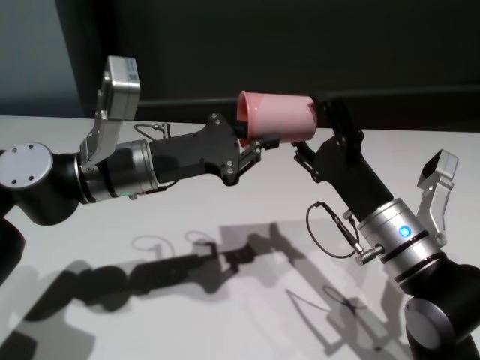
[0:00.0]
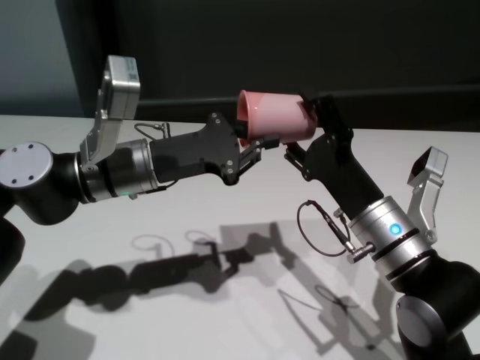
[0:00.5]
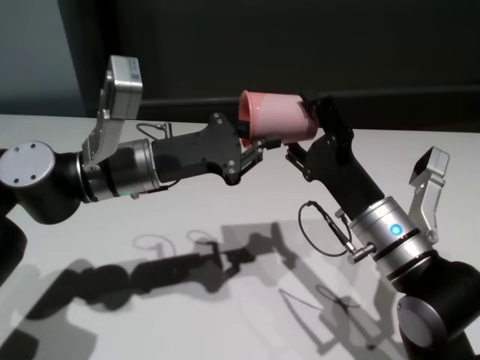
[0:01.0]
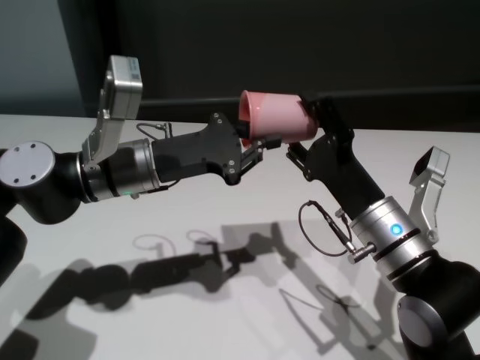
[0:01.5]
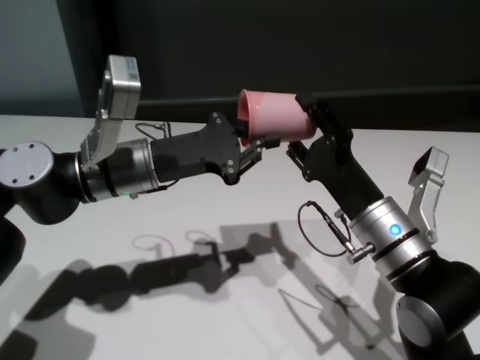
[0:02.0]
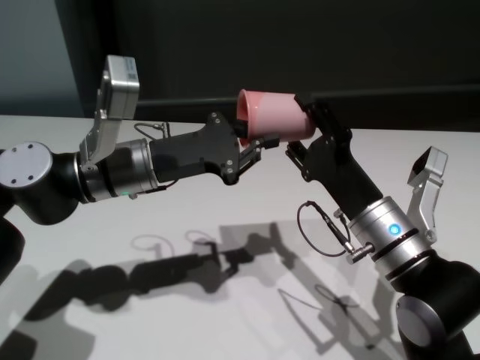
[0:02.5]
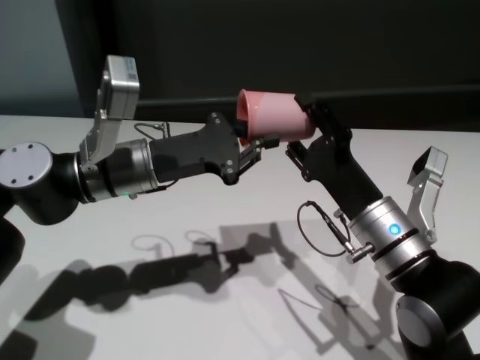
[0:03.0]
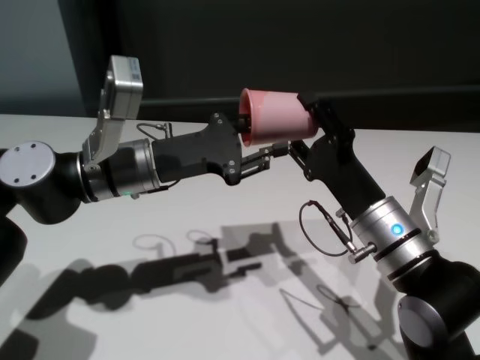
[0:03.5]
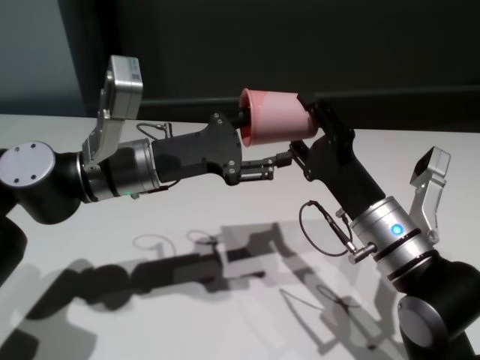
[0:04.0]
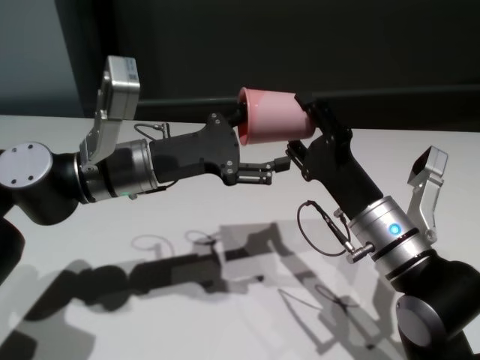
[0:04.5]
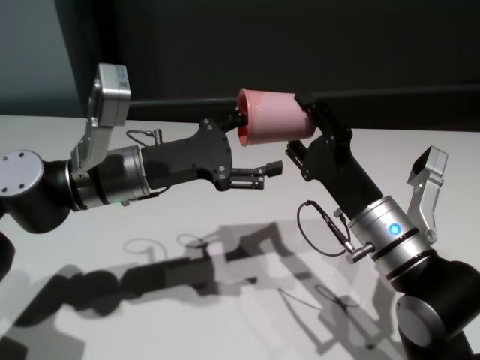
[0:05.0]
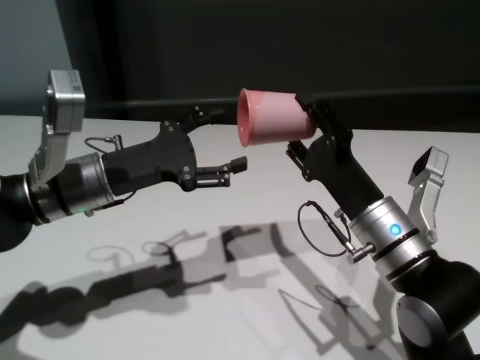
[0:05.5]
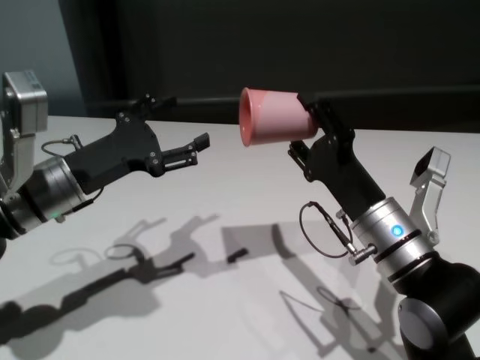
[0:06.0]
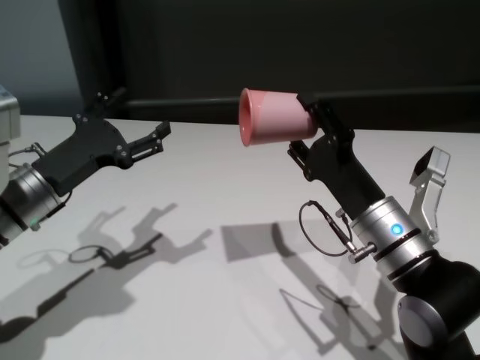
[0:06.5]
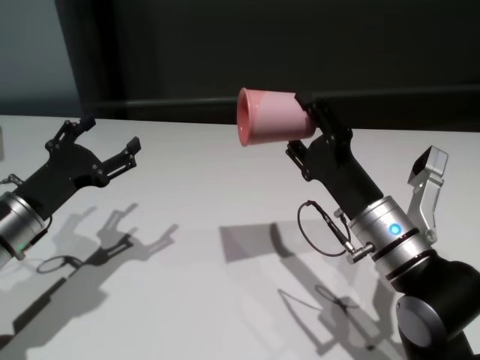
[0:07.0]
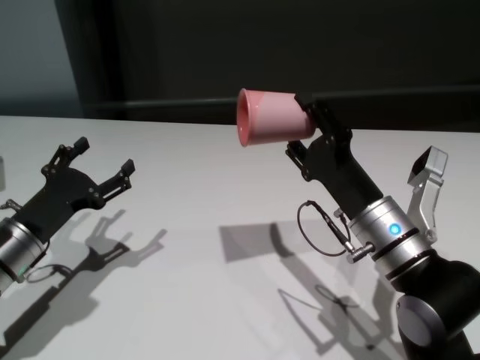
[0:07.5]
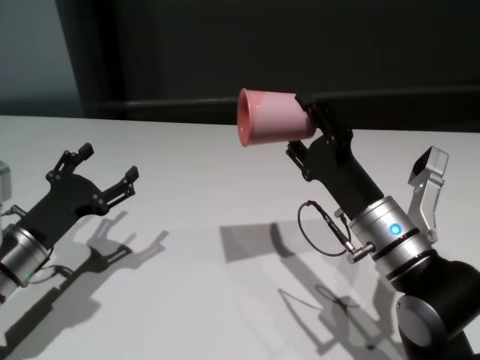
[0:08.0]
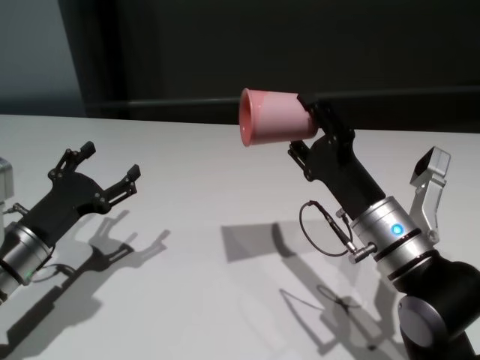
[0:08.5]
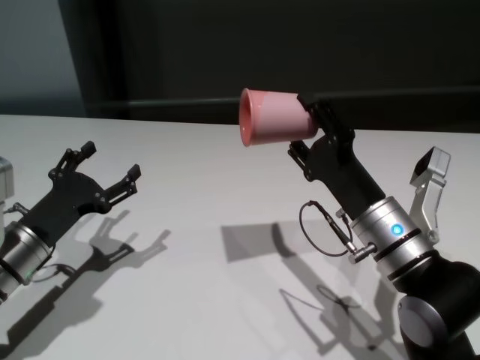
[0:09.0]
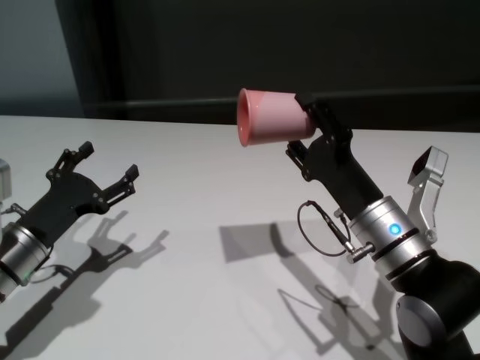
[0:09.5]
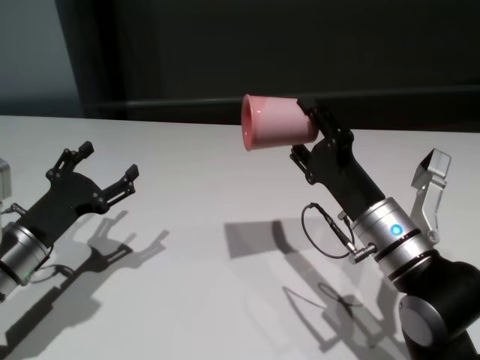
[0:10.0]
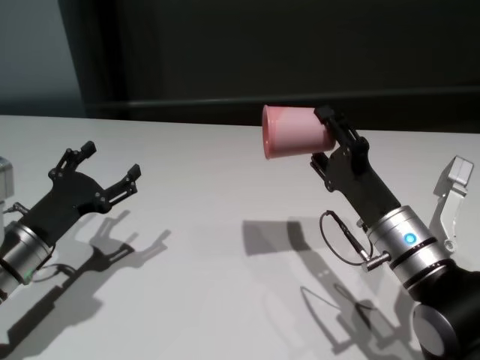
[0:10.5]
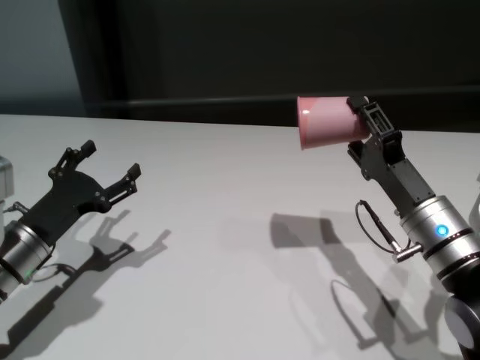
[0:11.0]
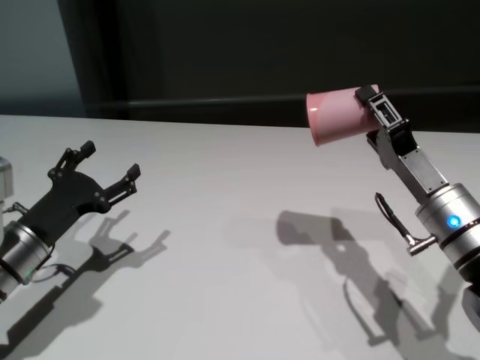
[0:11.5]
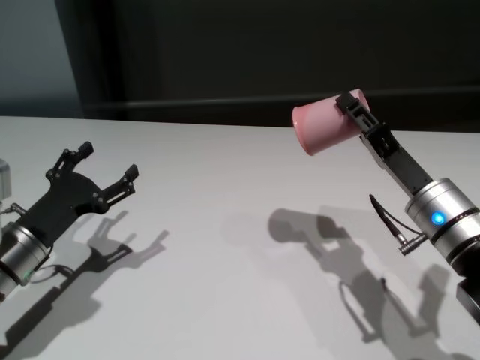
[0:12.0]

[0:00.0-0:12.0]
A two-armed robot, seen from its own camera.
Task of the whole recording: On the white table pick up the cup with one hand and transfer it to the other hand before turning it over.
Step, 0:00.0 to 0:05.0: Pass the cup to the right gripper.

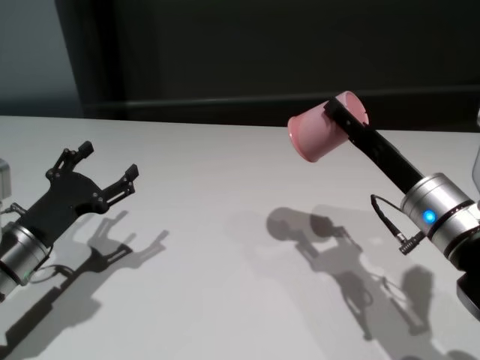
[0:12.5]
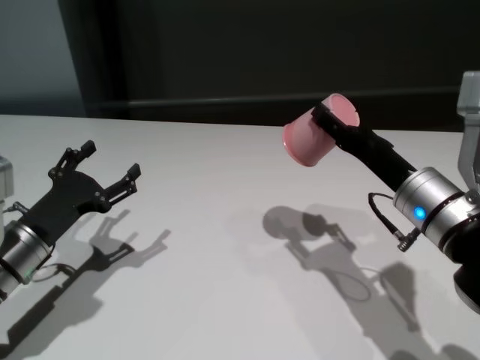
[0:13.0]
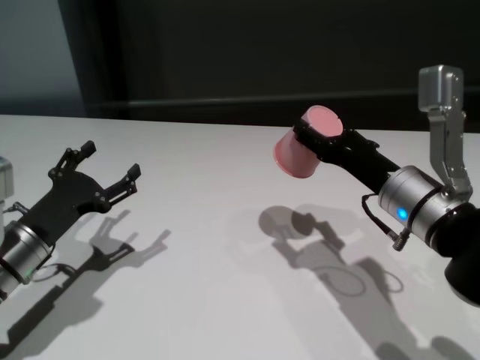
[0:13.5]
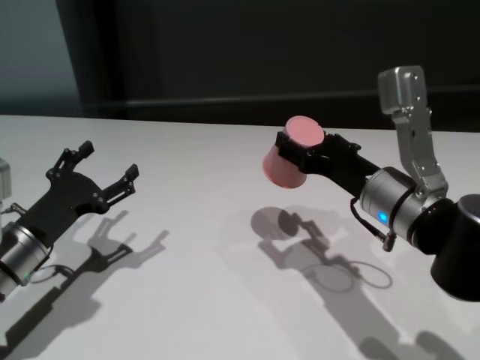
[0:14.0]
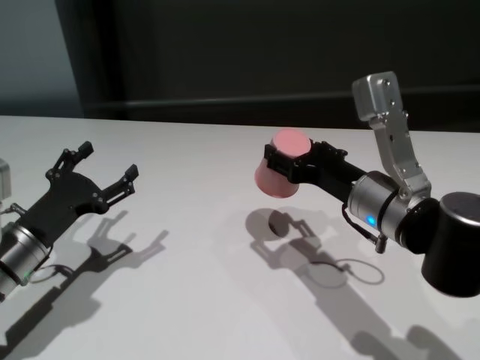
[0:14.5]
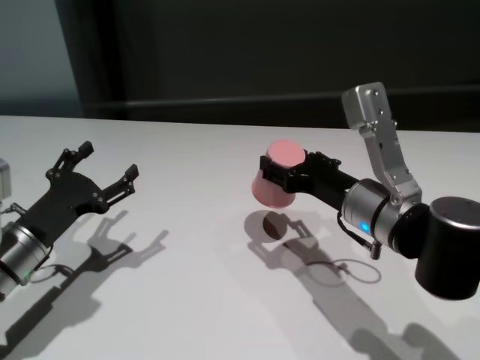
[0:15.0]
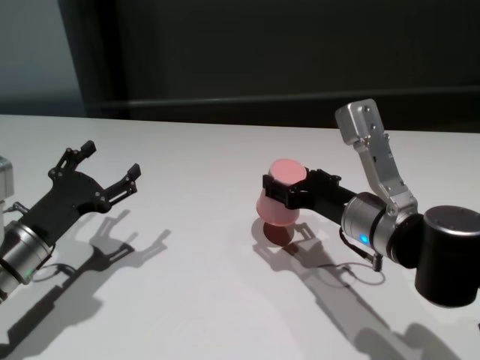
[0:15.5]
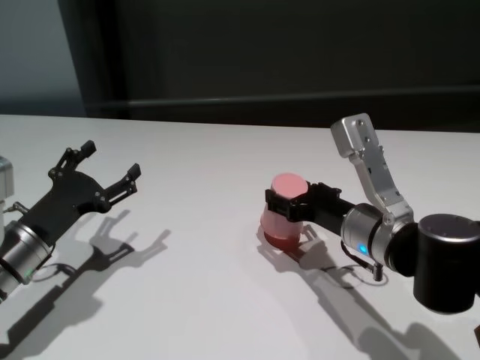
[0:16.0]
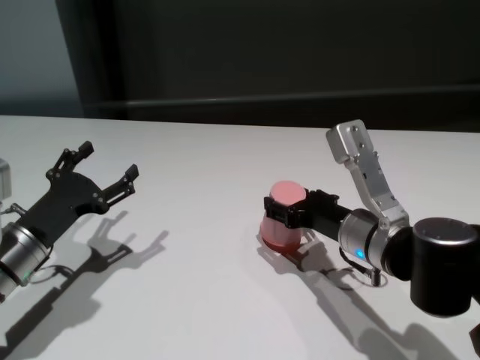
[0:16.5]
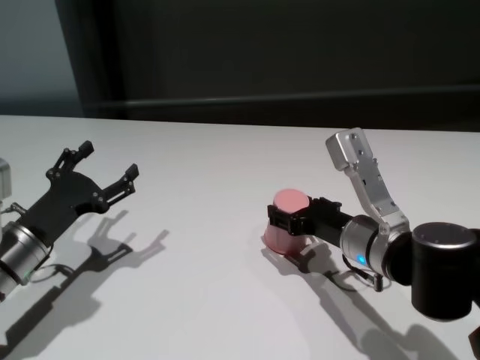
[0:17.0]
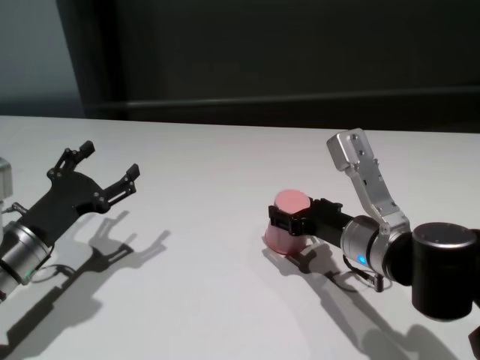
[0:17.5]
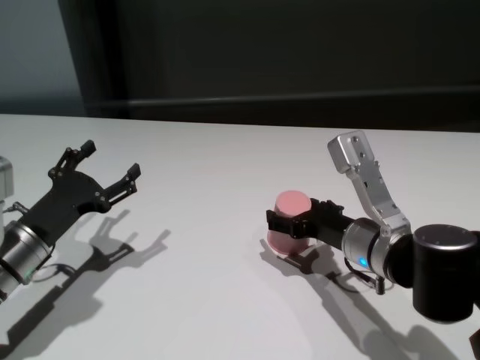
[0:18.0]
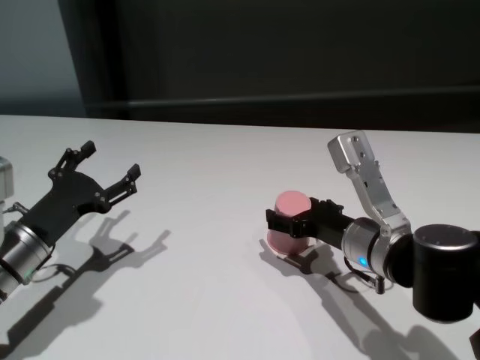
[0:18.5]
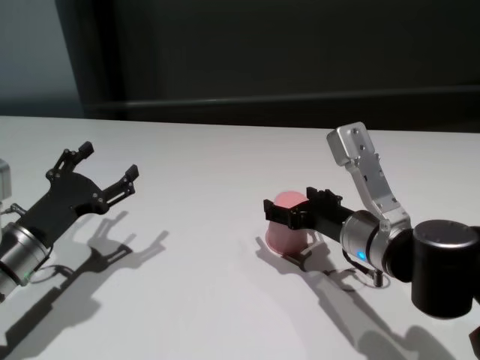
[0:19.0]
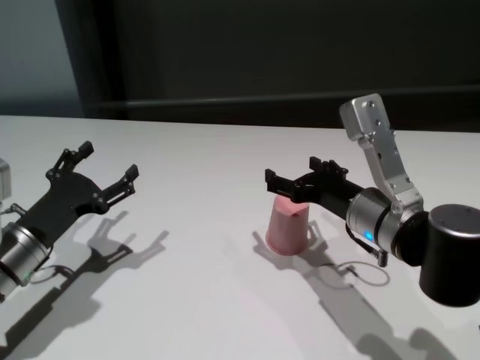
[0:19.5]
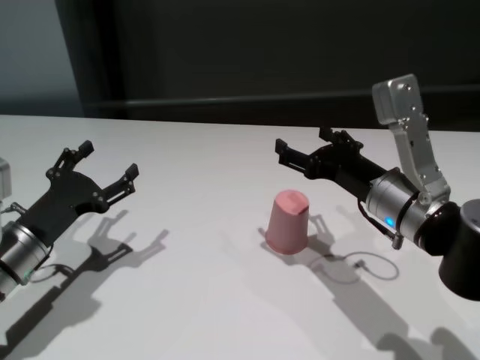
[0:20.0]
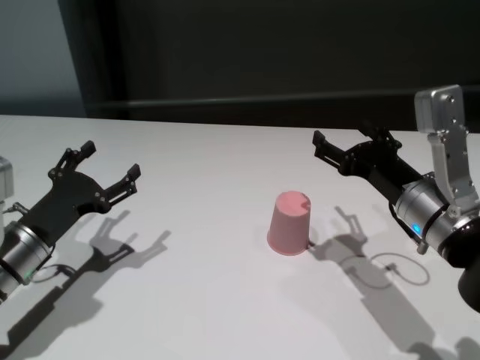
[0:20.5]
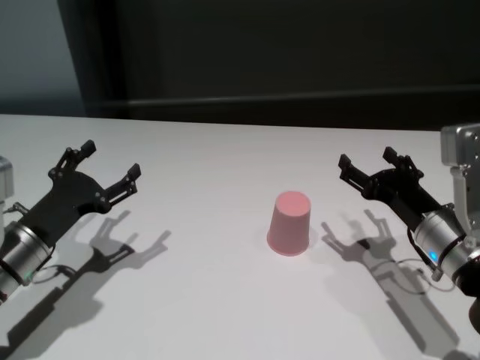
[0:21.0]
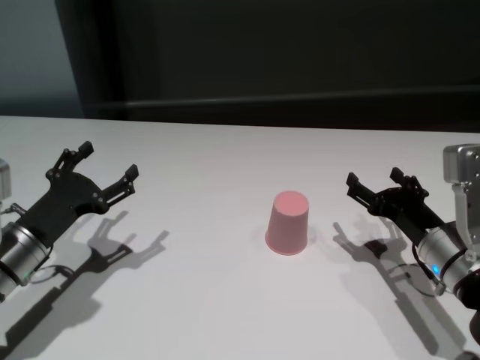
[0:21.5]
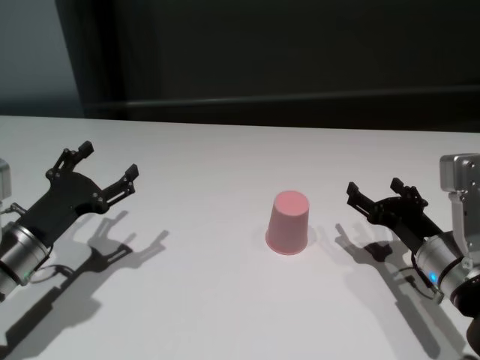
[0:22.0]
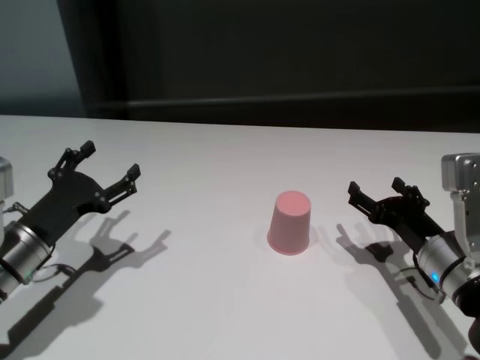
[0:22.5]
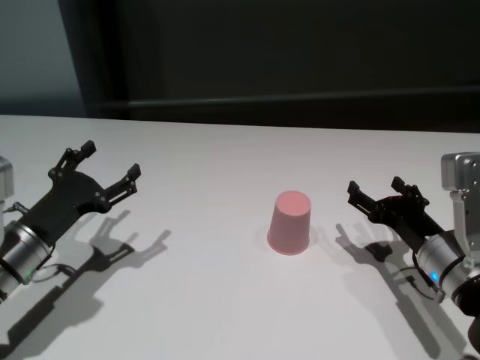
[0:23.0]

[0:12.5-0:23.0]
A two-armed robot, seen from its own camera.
Task of the whole recording: On the white table pick up the cup with one hand and transfer it to the other hand before turning it over.
Step, 0:12.5 to 0:18.0: Place the cup on the table with right gripper.
